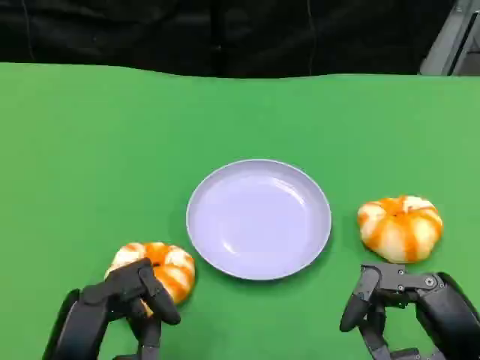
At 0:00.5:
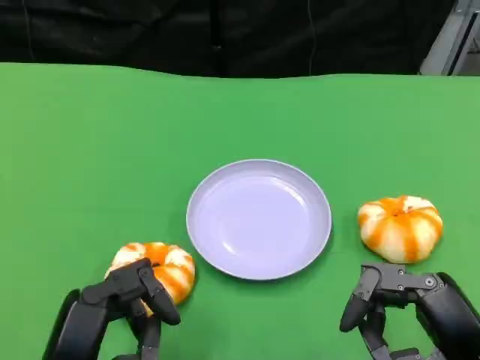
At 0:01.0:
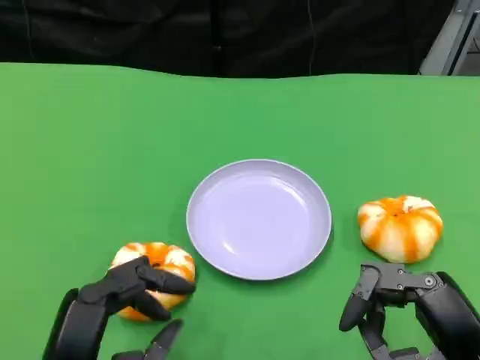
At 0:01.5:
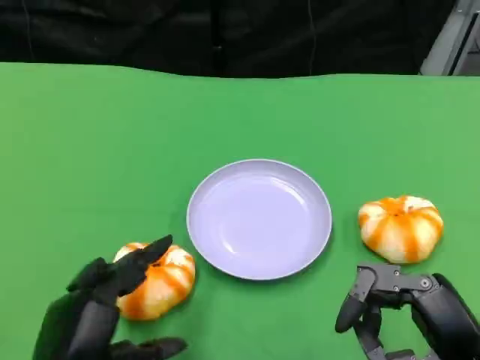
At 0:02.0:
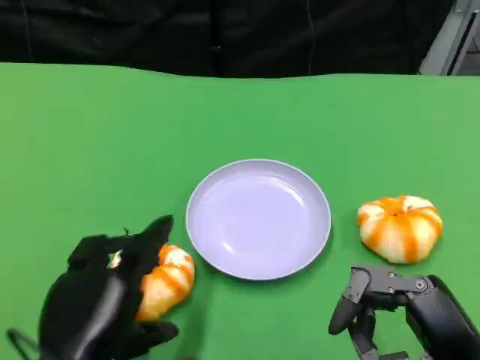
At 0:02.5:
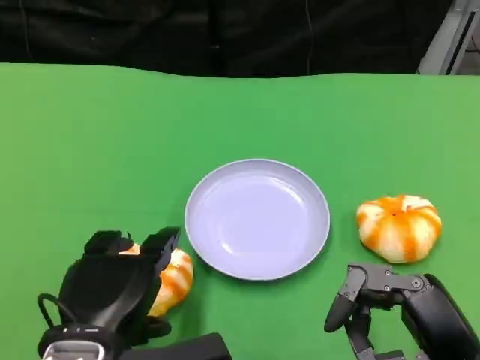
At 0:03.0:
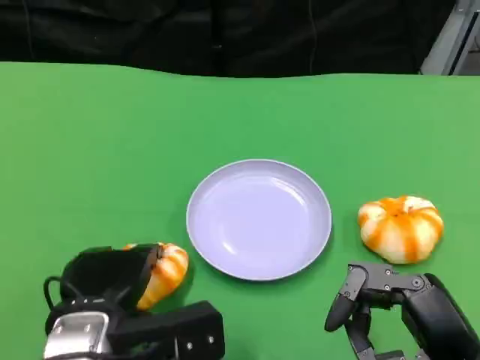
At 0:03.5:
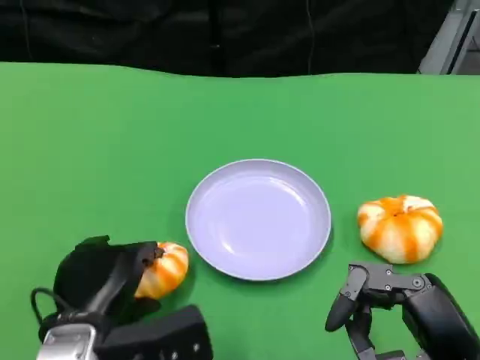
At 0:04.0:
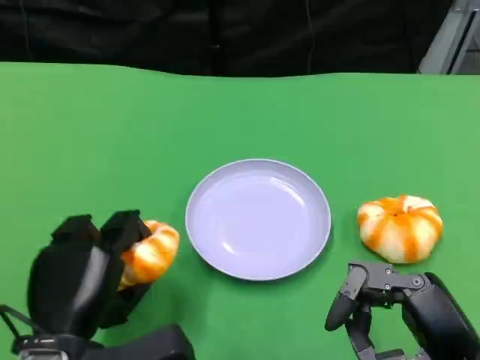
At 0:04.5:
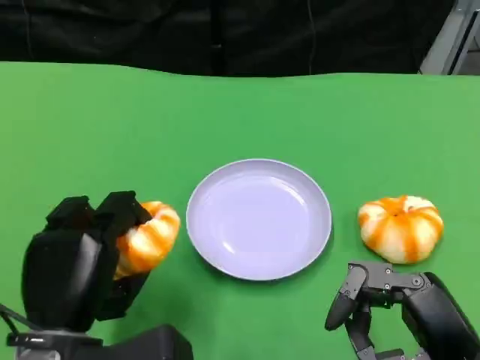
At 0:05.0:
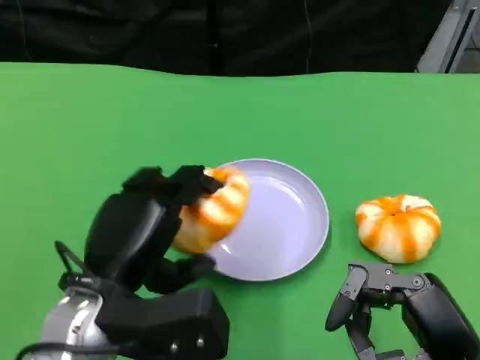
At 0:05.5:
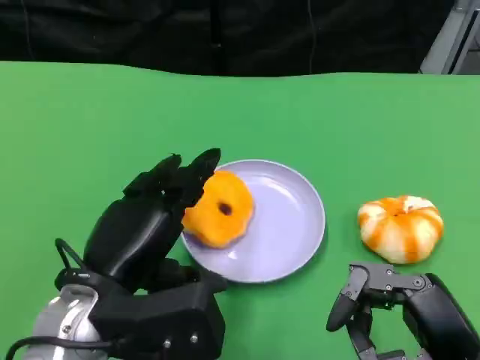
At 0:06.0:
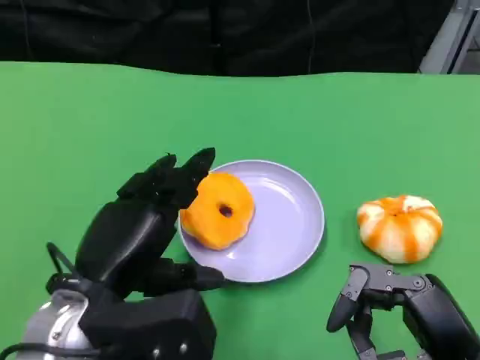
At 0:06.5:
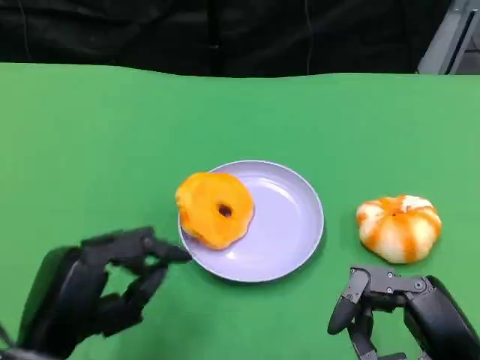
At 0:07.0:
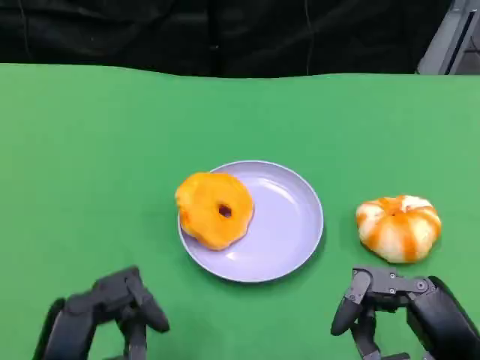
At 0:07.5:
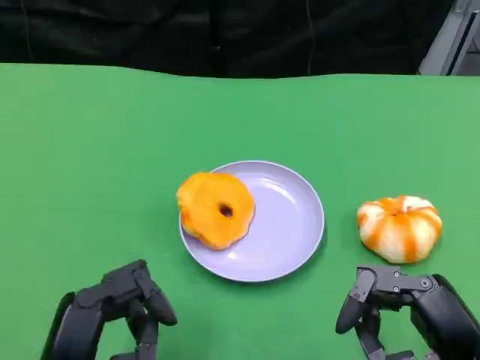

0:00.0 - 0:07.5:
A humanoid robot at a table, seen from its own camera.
Task of the whole recording: Grasp the bread from the table and place it into the plate.
0:04.0 - 0:05.5: The left hand ends up some 5 cm from where it was.
0:05.5 - 0:07.5: The left hand shifts some 10 cm backward.

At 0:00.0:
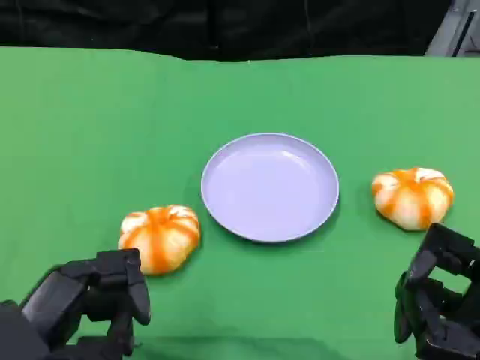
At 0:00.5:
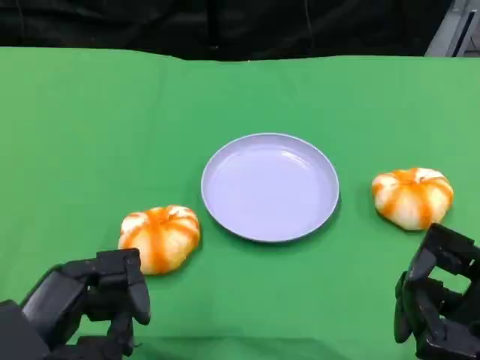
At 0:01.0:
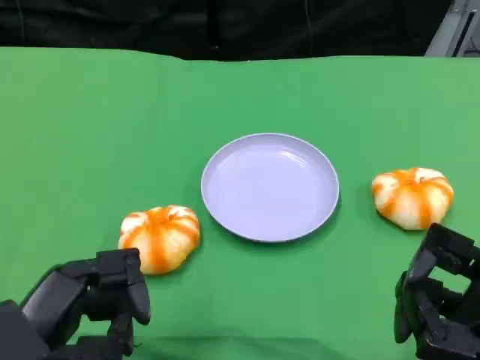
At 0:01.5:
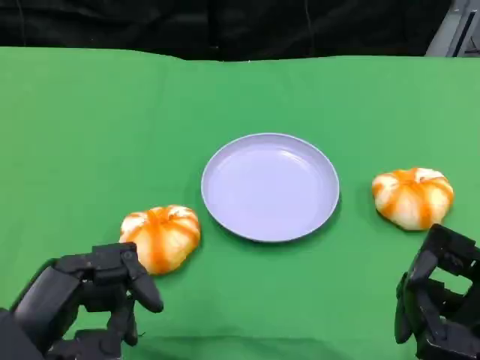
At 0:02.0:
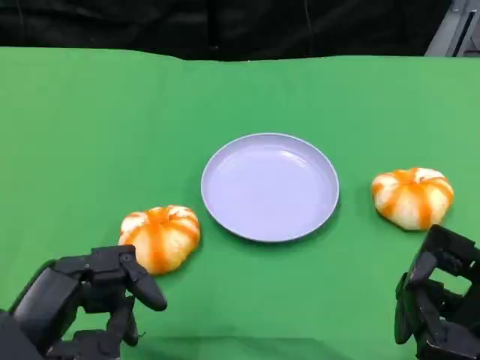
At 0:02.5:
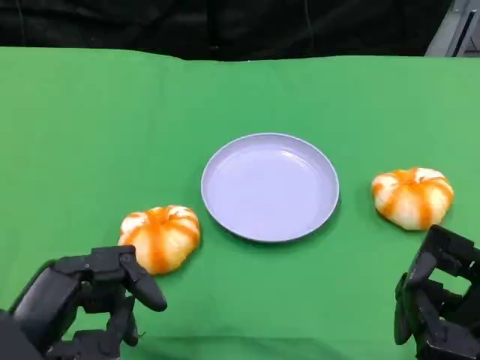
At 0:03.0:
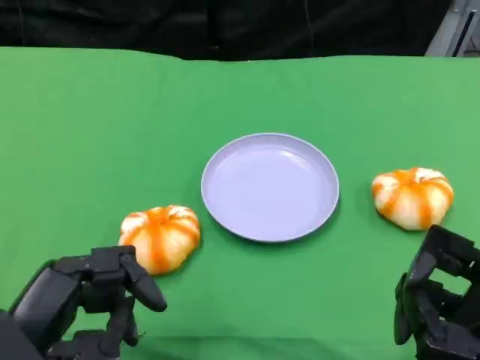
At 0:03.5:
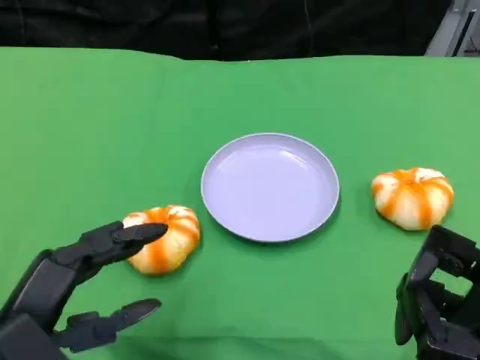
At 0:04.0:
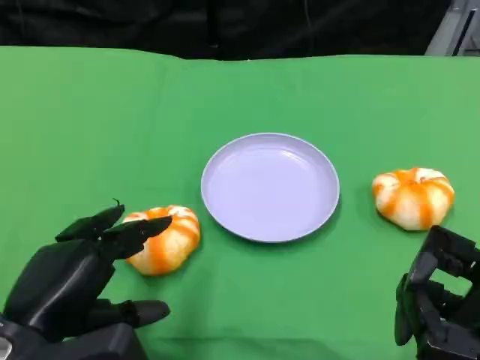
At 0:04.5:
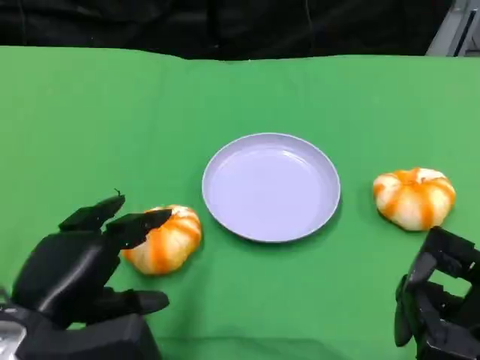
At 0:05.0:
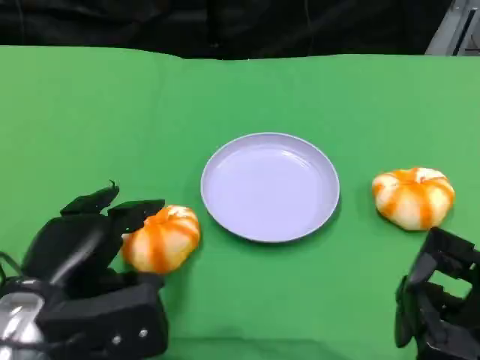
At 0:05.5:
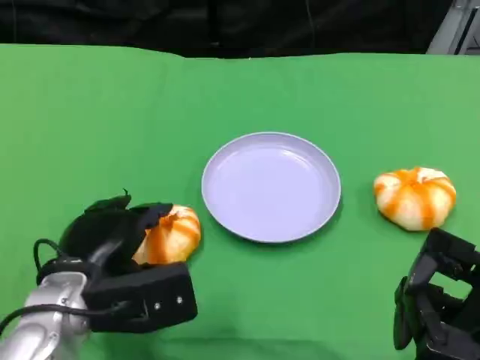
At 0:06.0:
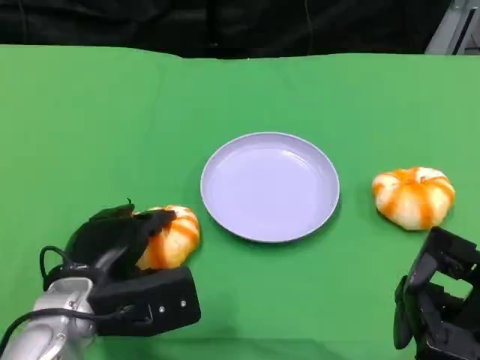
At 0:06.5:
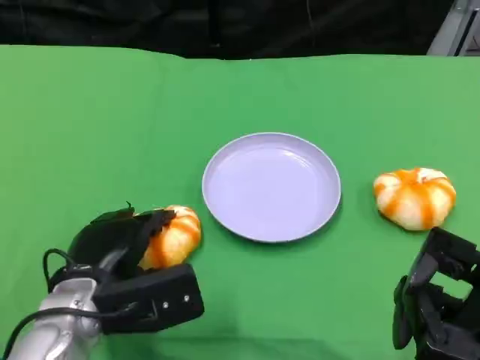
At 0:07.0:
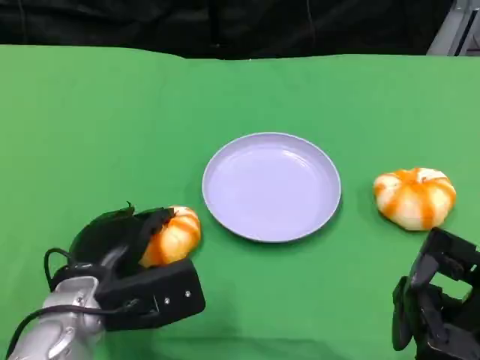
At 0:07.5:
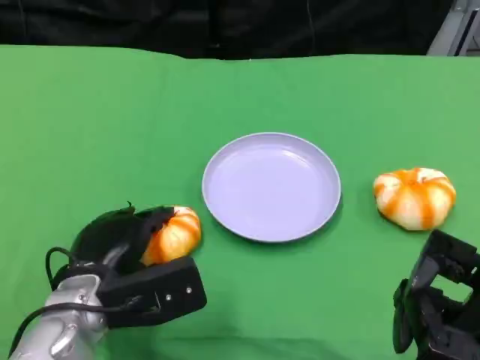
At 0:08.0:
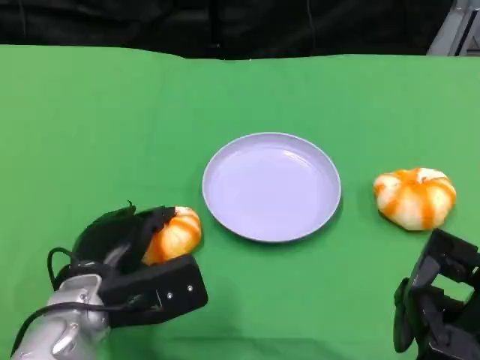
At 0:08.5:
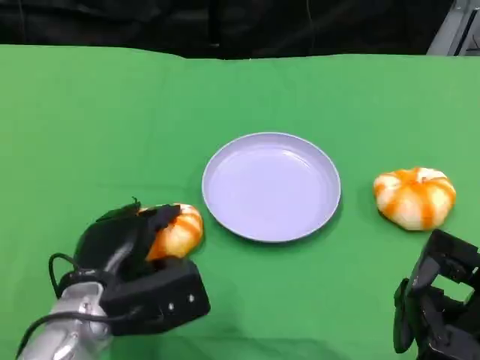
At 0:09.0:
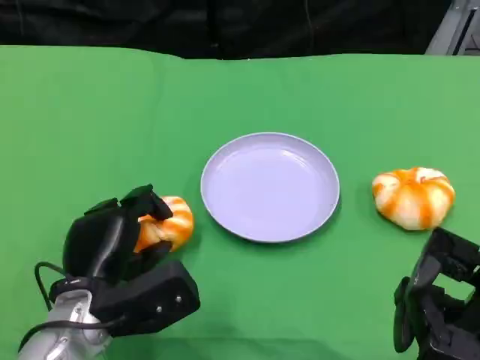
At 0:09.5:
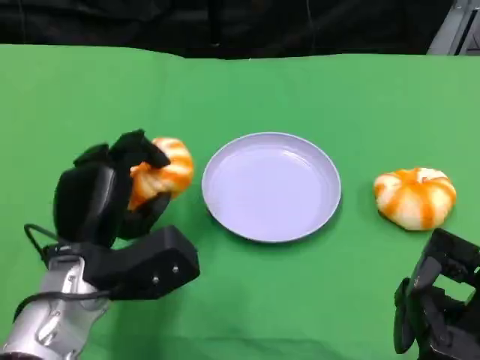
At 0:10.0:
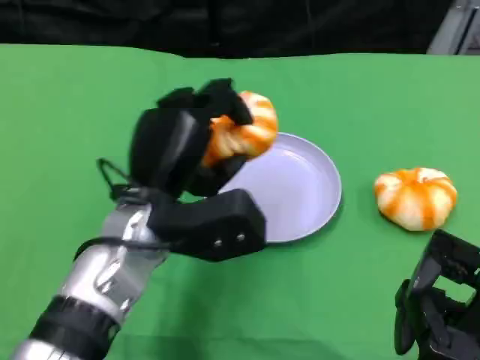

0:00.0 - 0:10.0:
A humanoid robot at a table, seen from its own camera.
Task of the whole recording: Grasp the bread from the table and place it into the plate.
0:00.0 - 0:02.0: Neither hand changes place.
0:04.0 - 0:06.0: The left hand goes some 10 cm forward and downward.
0:06.0 - 0:08.0: The hands make only small movements.
0:08.0 - 0:10.0: The left hand shifts about 10 cm upward and to the right.

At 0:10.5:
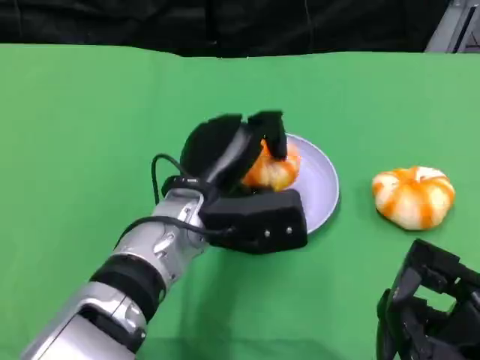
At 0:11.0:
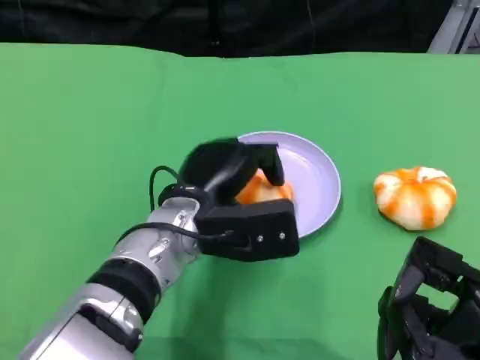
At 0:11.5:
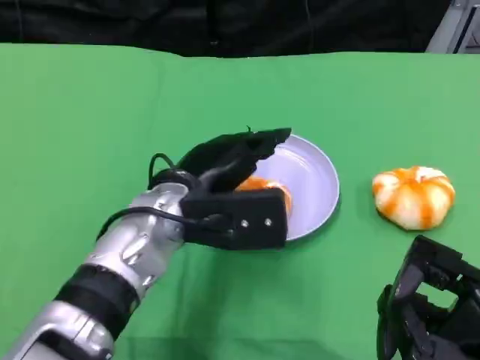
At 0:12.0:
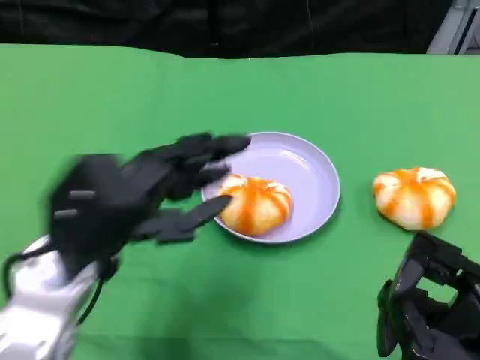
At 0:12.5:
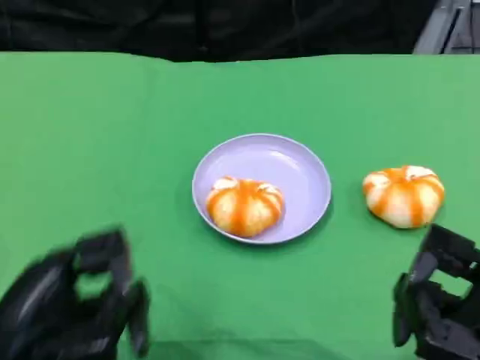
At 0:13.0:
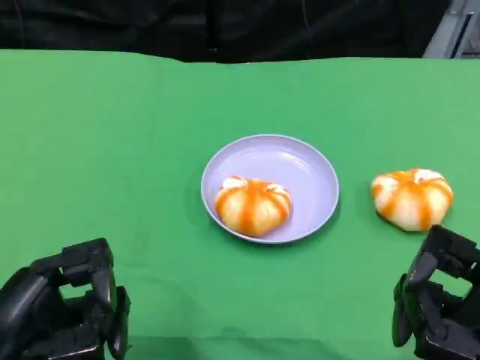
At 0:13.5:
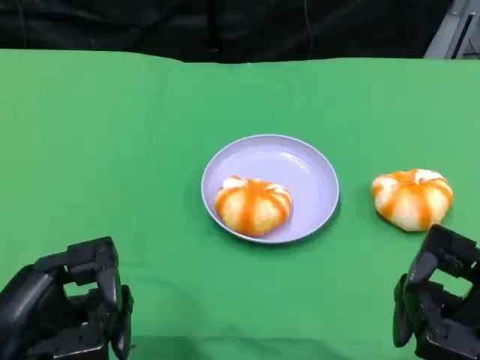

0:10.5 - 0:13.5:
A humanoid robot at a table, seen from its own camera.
Task of the whole recording: Grasp the bread from the table and place it into the plate.
0:10.5 - 0:12.0: The left hand is displaced to the left, backward and upward by roughly 15 cm.
0:12.0 - 0:13.5: The left hand goes approximately 10 cm backward and to the left.

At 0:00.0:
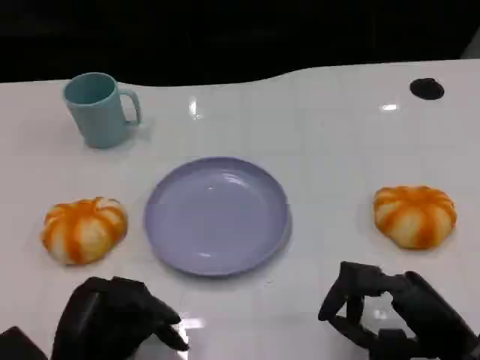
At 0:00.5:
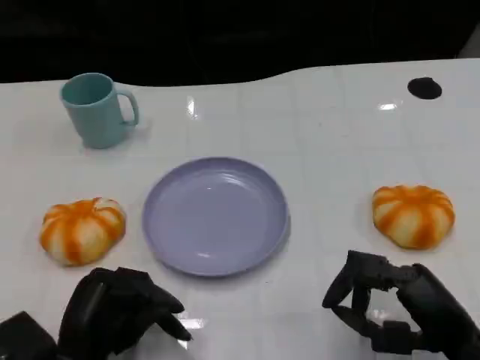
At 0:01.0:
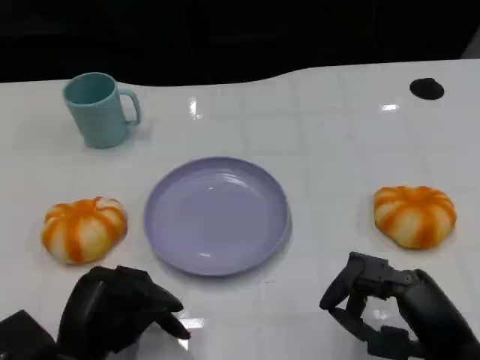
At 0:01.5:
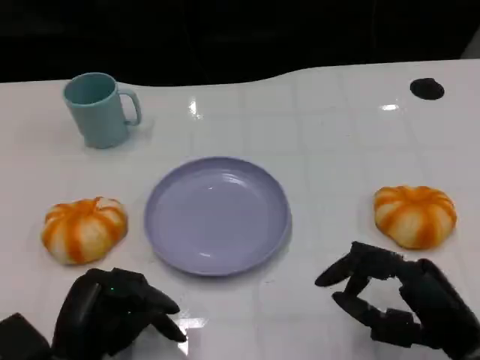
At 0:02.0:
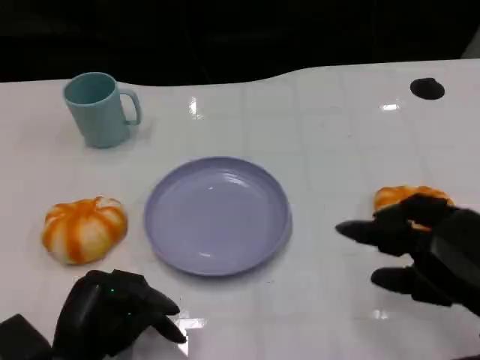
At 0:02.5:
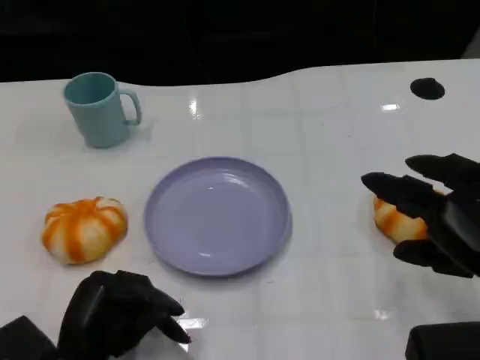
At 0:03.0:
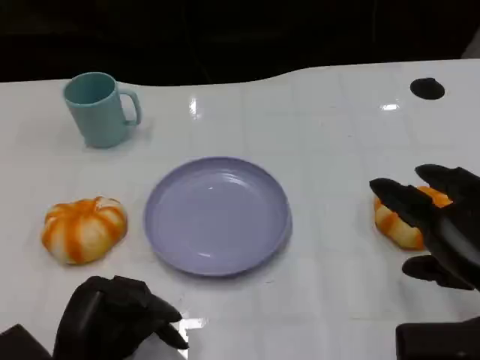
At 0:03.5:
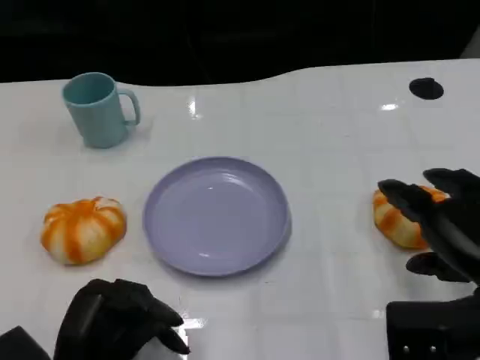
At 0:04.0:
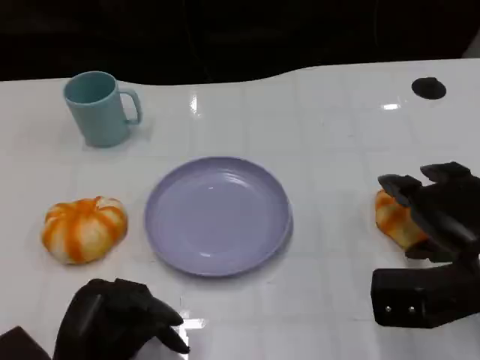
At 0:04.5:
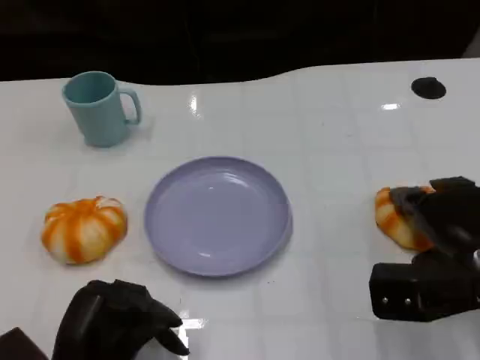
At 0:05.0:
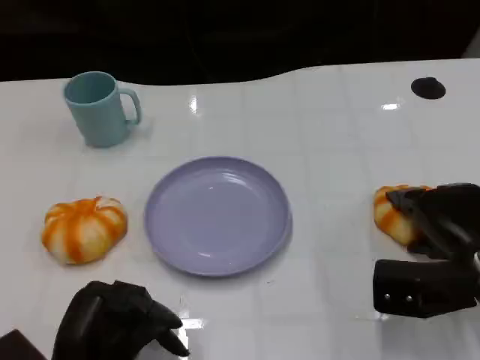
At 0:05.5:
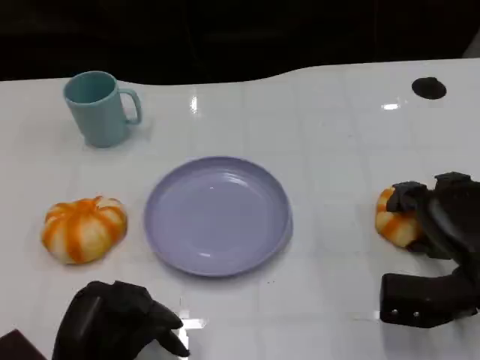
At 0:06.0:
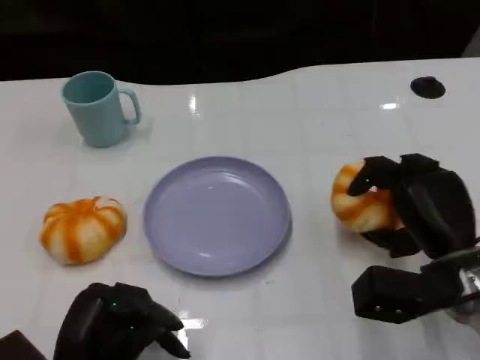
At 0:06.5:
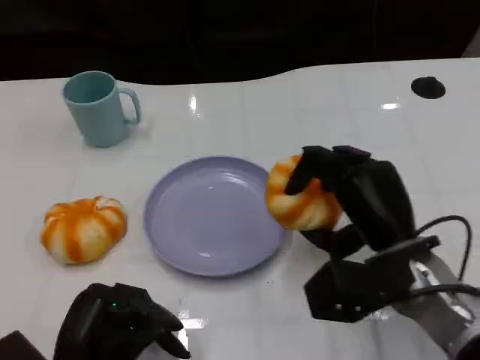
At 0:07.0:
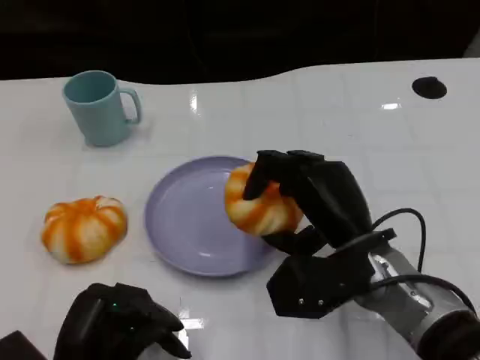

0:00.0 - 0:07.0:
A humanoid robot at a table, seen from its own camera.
Task of the whole recording: Grasp the bread from the table and place it into the plate.
0:00.0 - 0:02.0: The right hand travels upward by approximately 5 cm.
0:03.5 - 0:05.0: The right hand is displaced downward and forward by roughly 10 cm.
0:05.0 - 0:07.0: The right hand is displaced to the left by roughly 10 cm.
